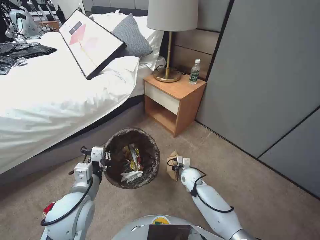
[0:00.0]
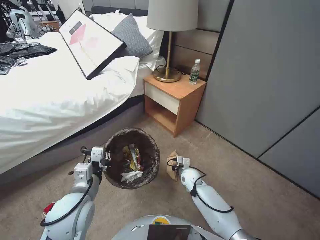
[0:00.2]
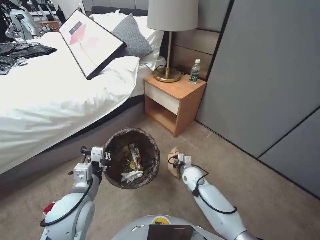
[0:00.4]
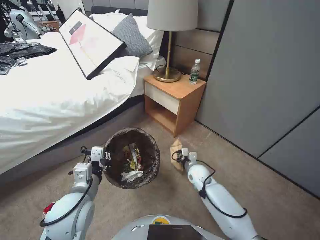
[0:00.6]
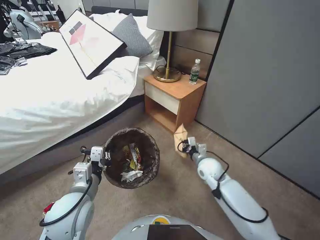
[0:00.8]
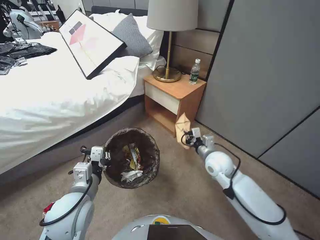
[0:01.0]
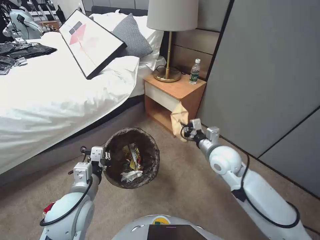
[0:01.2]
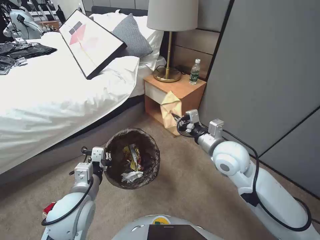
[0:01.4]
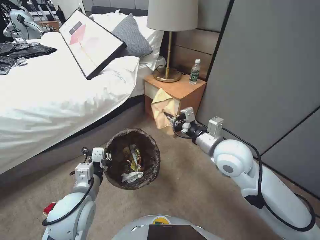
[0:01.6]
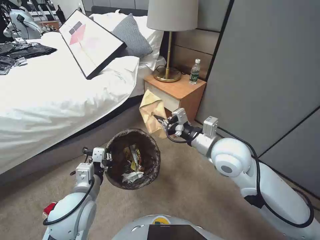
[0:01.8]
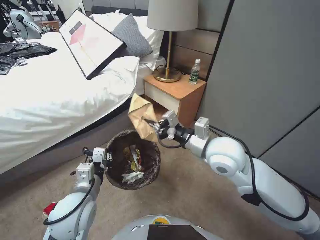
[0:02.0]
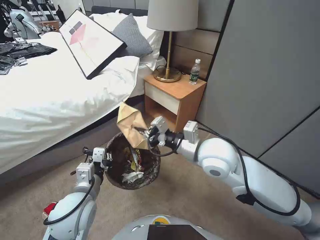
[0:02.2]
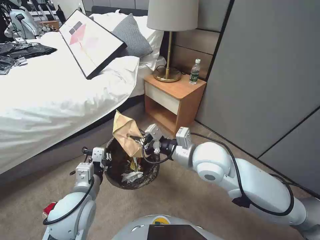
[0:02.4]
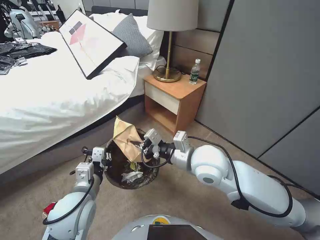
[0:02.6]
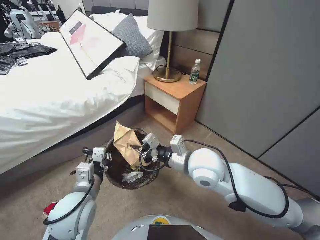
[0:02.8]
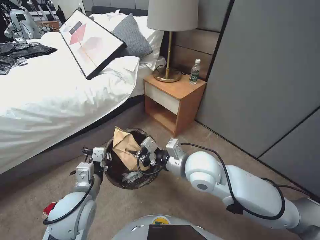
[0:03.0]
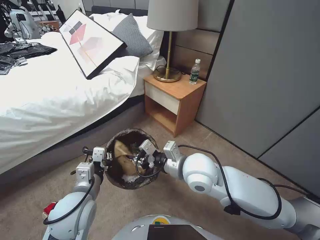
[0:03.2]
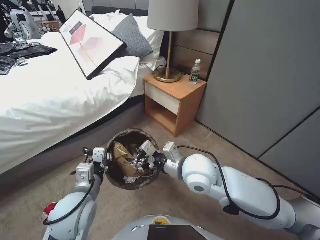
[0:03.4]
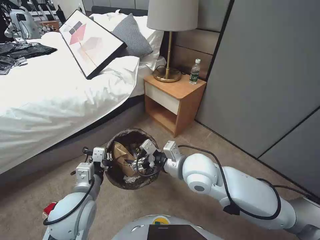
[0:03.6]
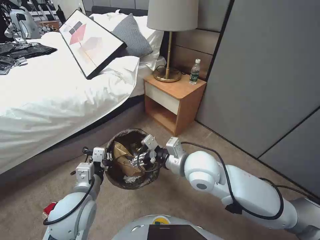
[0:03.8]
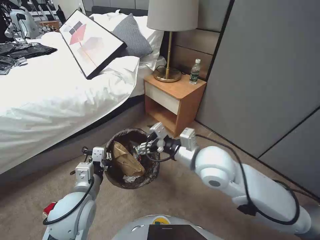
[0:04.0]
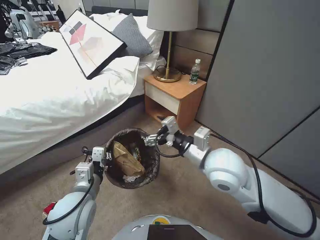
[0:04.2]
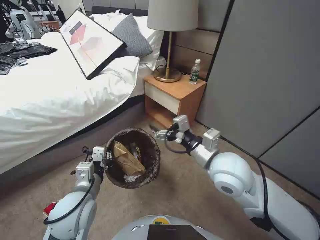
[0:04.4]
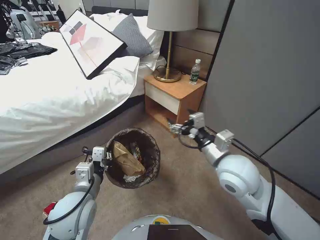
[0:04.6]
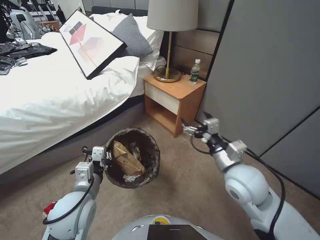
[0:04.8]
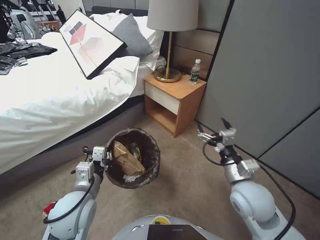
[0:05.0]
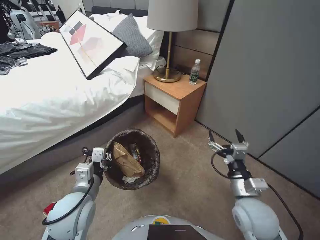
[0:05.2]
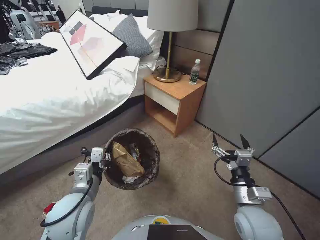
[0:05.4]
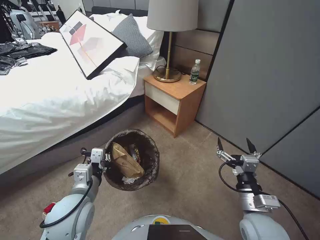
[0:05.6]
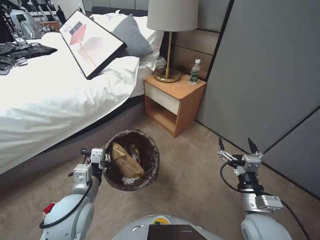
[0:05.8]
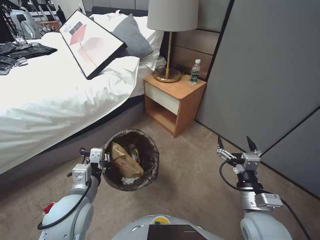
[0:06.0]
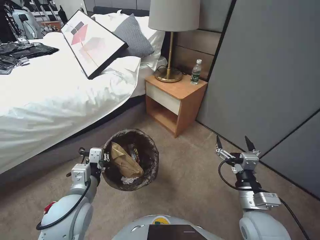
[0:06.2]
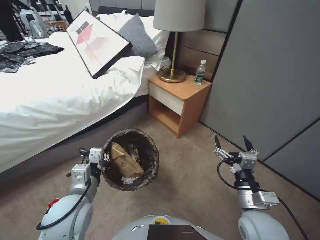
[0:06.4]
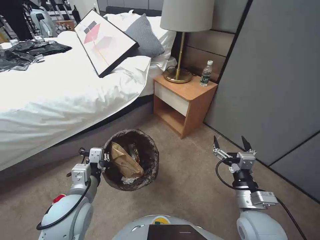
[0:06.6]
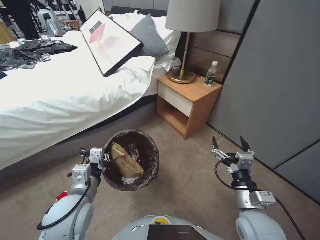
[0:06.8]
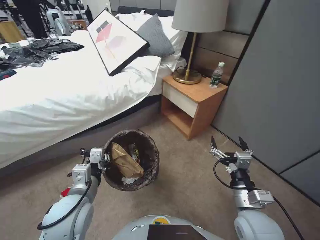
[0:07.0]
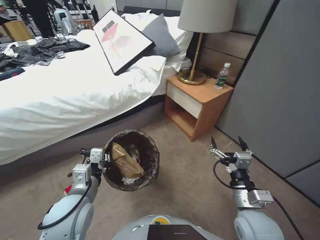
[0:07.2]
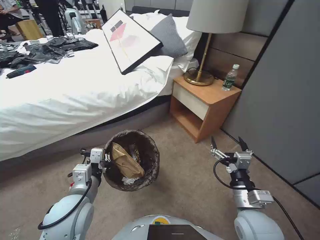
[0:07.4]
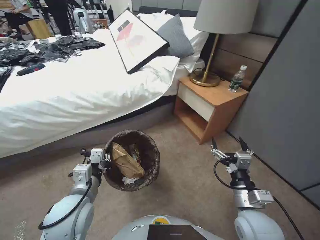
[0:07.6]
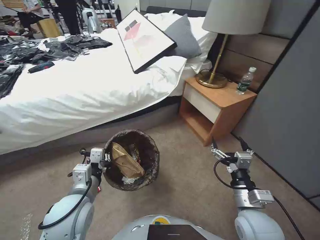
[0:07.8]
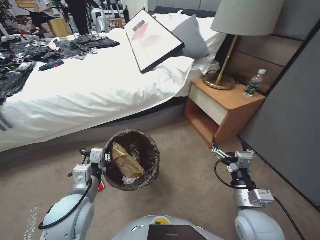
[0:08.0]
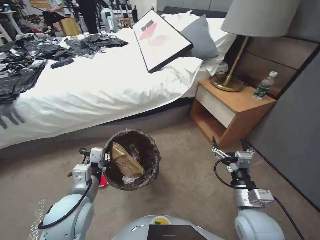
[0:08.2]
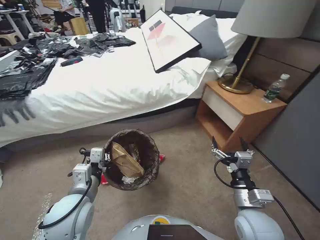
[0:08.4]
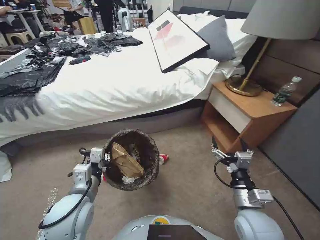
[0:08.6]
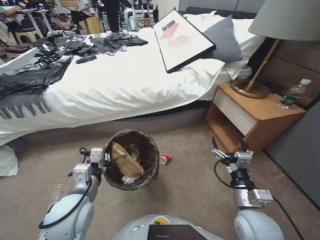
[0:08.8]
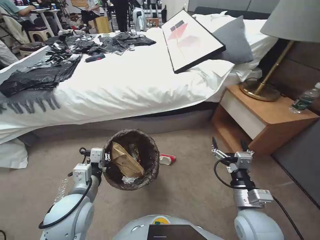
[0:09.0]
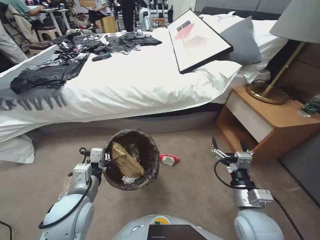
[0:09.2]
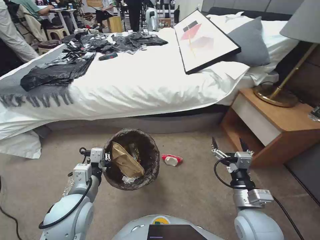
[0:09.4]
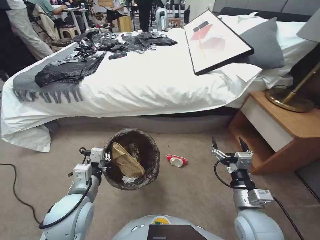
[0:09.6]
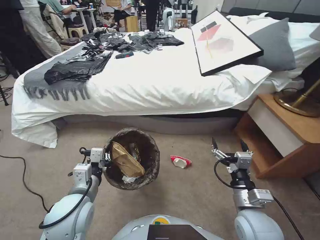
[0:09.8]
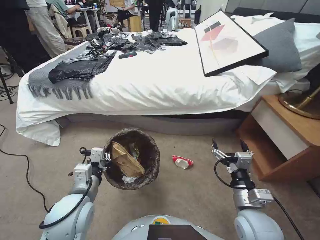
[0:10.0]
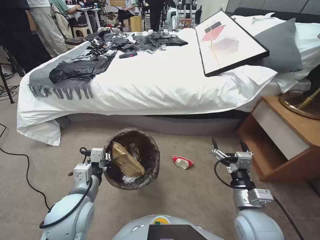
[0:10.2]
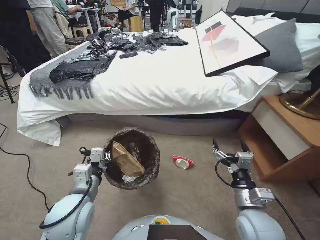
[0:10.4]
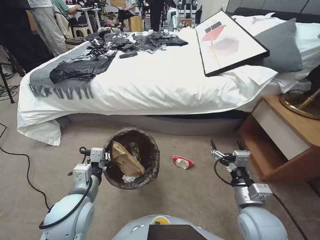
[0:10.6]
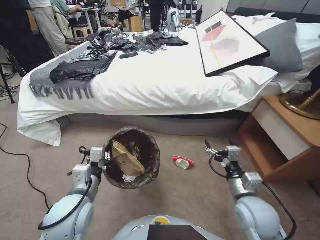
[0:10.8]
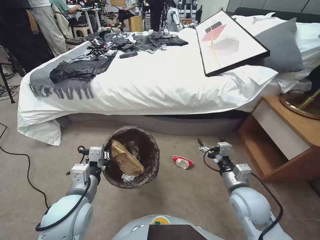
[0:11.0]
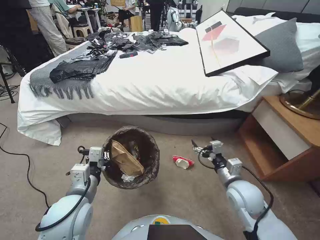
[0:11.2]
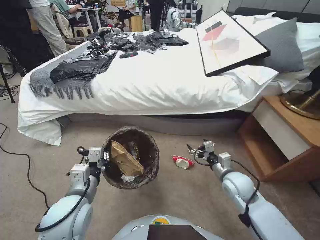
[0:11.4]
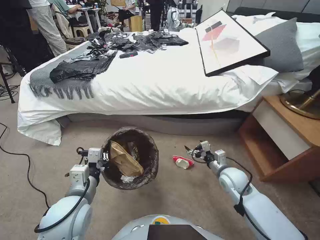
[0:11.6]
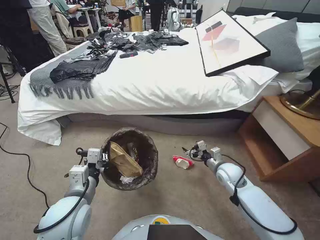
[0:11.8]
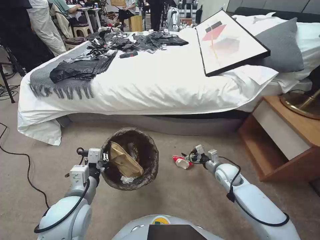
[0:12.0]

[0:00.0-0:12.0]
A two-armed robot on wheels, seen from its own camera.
Task of the whole recording: Pick up the trash bin, then pick up the garbage from the floor and place it into the trash bin.
0:00.0 to 0:01.6: The right gripper moves upward, approximately 35 cm.
0:01.6 to 0:03.0: The right gripper is displaced to the left by approximately 10 cm.
0:03.0 to 0:04.4: The right gripper changes place by some 5 cm, and opens up.
0:04.4 to 0:06.0: The right gripper shifts approximately 20 cm downward, backward and to the right.
0:10.4 to 0:12.0: The right gripper goes about 20 cm forward and downward.

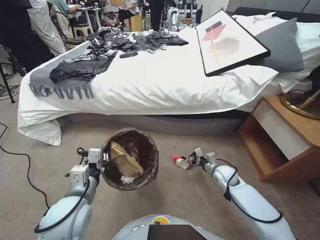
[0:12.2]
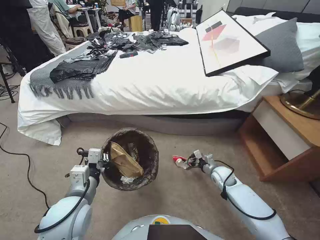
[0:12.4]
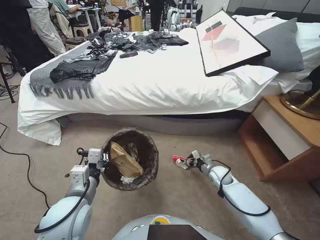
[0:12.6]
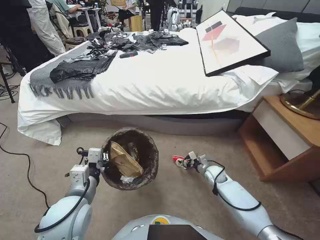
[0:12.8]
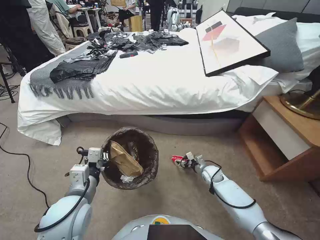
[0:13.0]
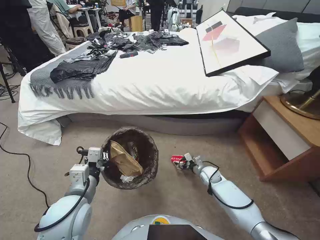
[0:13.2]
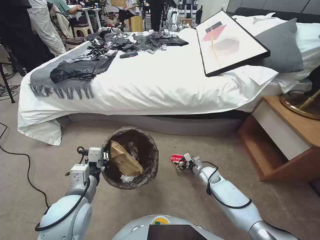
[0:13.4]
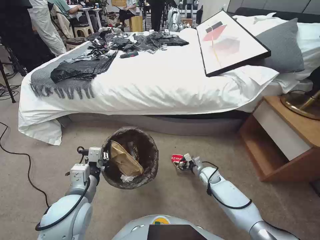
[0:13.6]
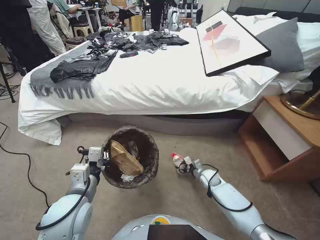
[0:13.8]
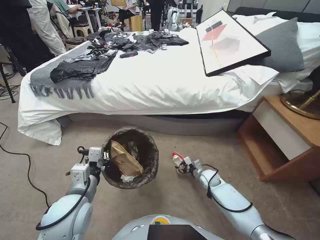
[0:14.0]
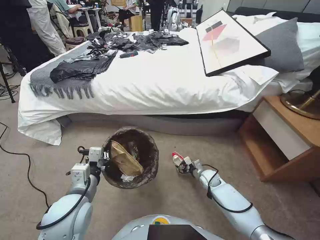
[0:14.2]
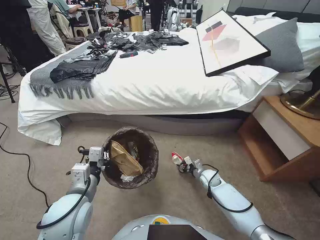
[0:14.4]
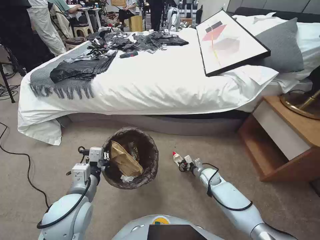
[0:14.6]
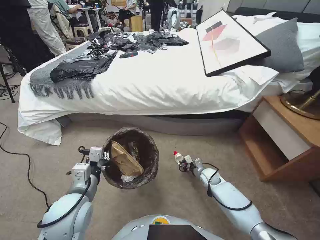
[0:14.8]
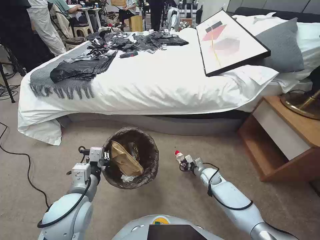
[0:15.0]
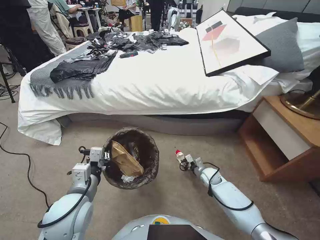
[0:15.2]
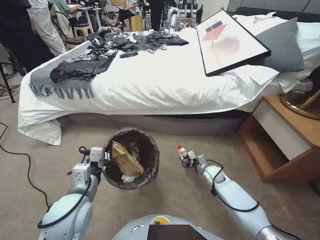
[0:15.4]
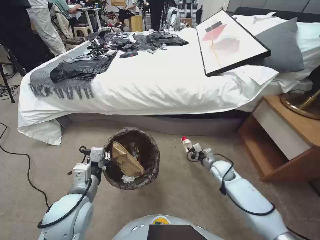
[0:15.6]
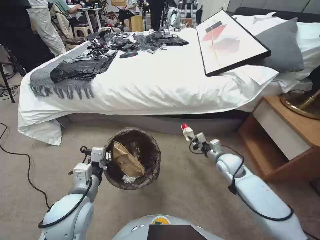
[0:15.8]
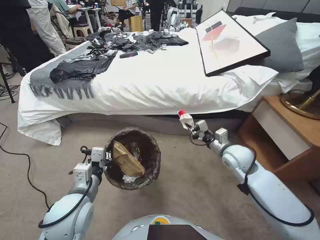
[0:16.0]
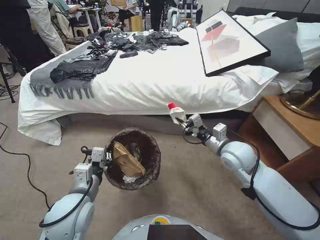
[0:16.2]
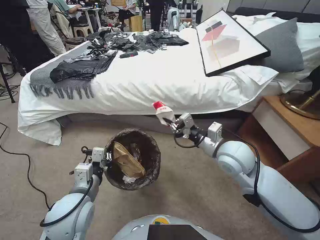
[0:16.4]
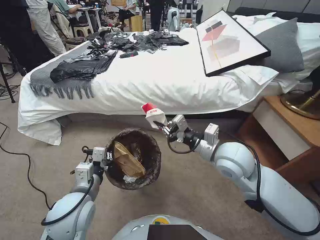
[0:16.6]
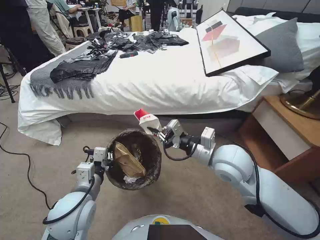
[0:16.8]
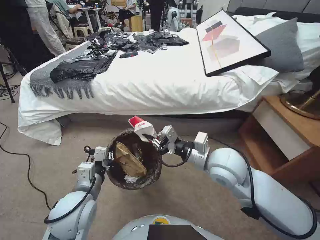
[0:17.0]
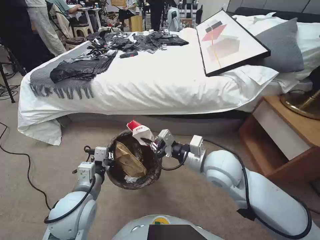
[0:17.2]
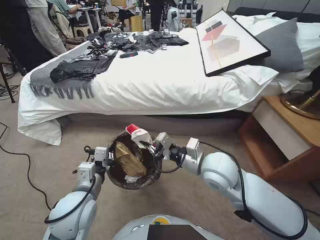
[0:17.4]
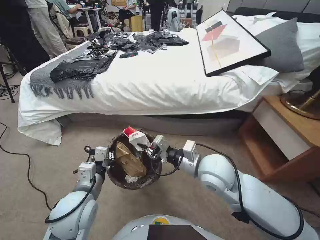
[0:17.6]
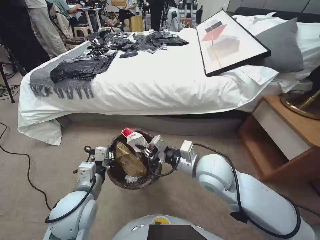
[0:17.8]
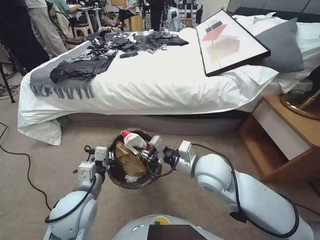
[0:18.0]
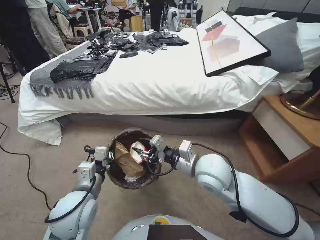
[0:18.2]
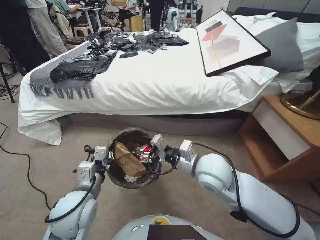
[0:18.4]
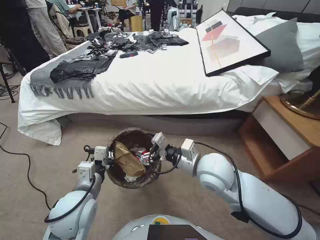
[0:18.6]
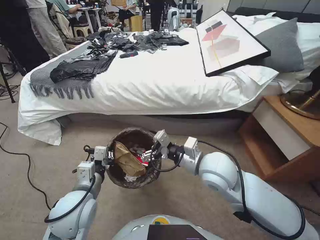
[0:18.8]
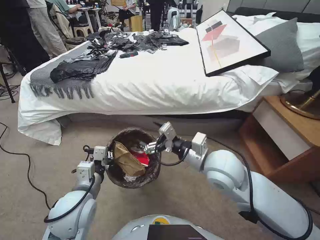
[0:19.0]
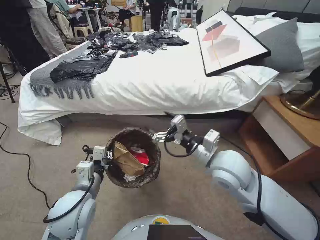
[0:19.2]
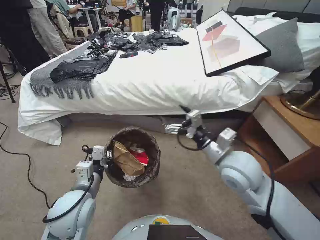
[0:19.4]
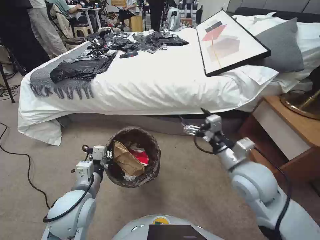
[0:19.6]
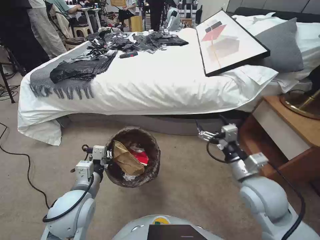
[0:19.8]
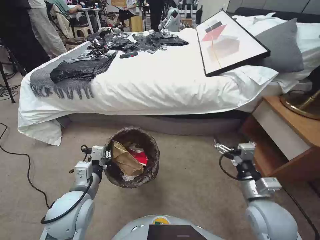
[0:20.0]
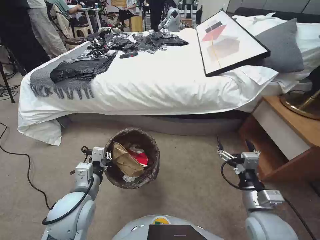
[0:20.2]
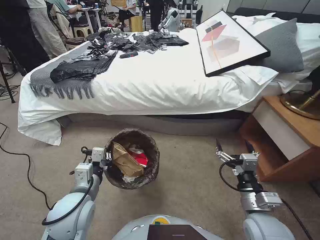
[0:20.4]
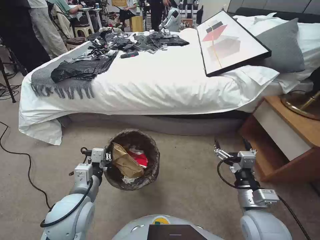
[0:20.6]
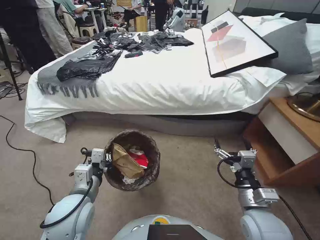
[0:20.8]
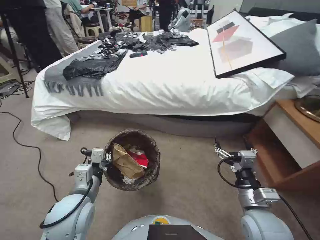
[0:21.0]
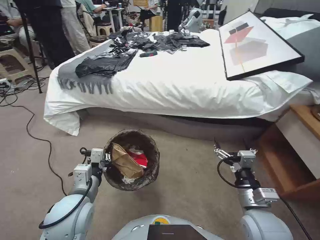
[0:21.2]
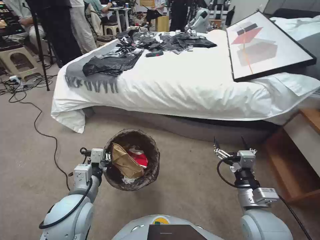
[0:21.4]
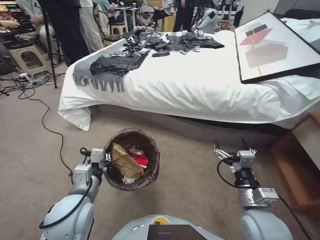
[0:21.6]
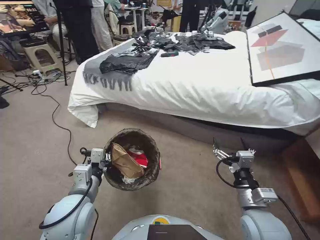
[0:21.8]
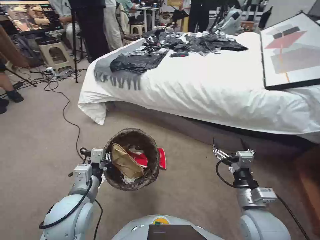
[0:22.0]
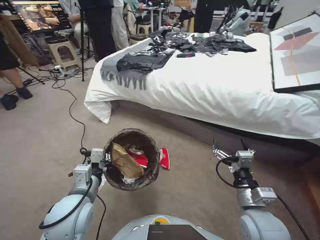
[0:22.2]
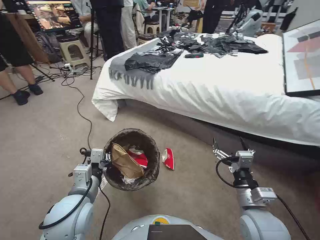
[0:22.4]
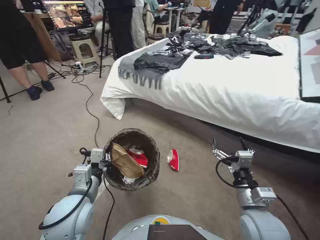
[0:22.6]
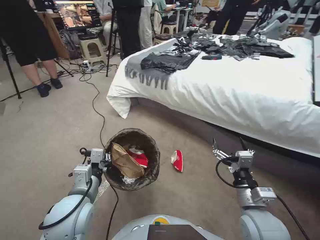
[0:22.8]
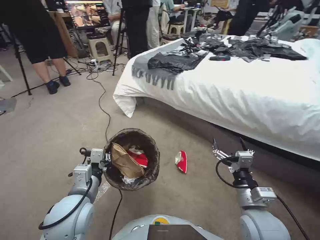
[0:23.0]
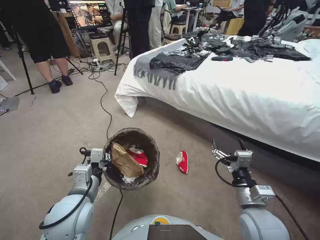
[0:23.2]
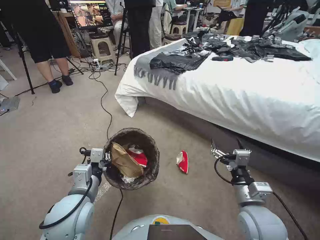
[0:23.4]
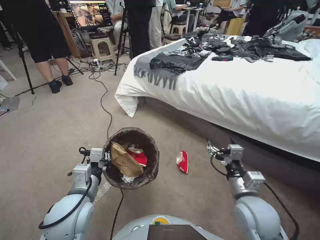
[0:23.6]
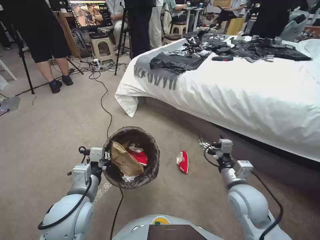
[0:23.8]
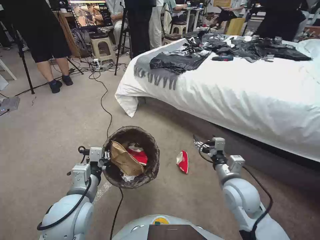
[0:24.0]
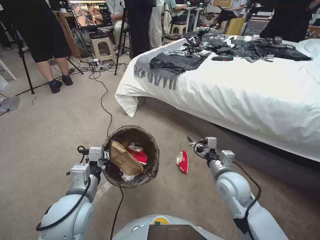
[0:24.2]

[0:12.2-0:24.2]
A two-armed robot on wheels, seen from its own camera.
Task of the whole recording: Pick up the trash bin, then pick up the garbage from the floor and place it into the trash bin.
0:12.2 to 0:13.8: The right gripper shifts about 10 cm downward.
0:13.8 to 0:15.2: The right gripper closes.
0:15.2 to 0:16.6: The right gripper is displaced upward by roughly 35 cm.
0:16.6 to 0:18.2: The right gripper shifts about 5 cm to the left, and opens up.
0:18.2 to 0:19.8: The right gripper is displaced to the right by some 10 cm, and opens its fingers.
0:19.8 to 0:21.2: The right gripper goes approximately 10 cm backward and downward.
0:22.6 to 0:24.2: The right gripper travels forward by some 10 cm.
